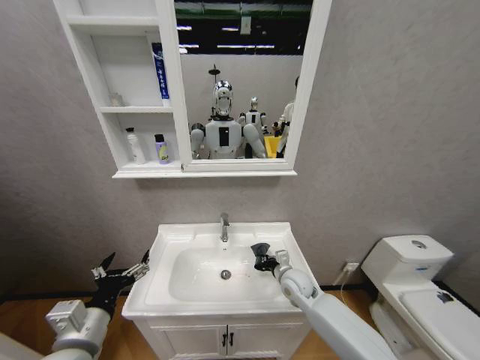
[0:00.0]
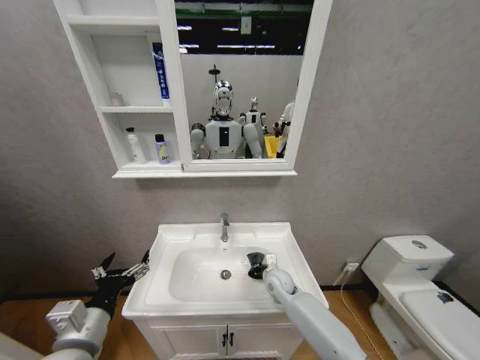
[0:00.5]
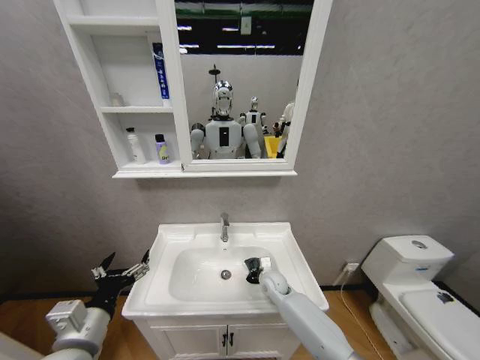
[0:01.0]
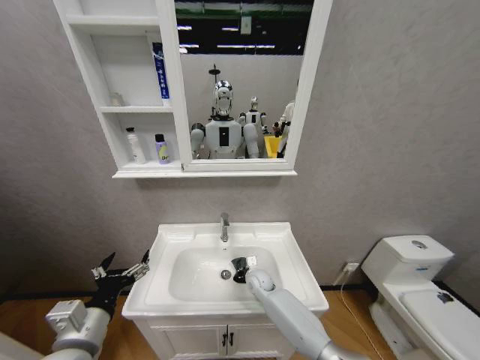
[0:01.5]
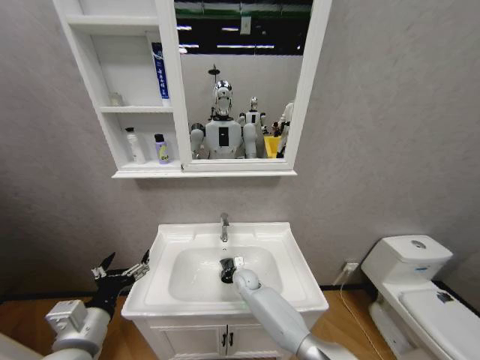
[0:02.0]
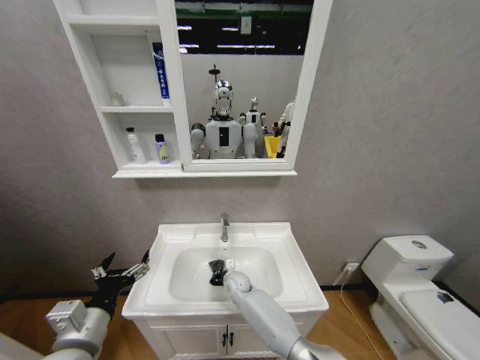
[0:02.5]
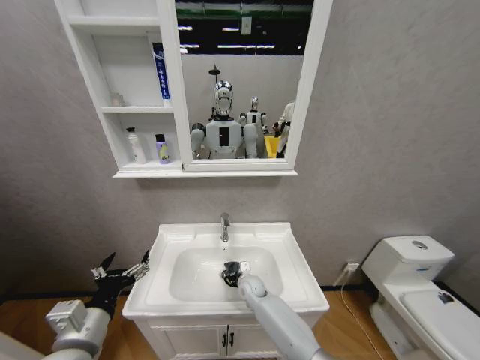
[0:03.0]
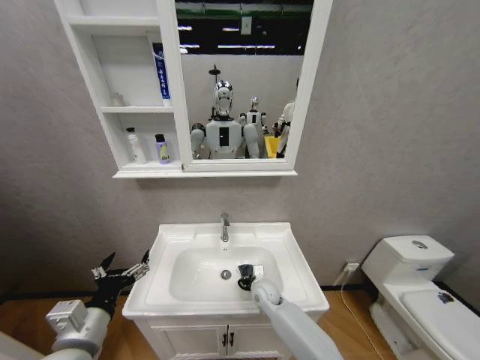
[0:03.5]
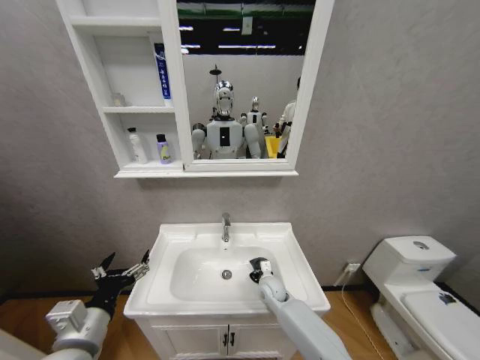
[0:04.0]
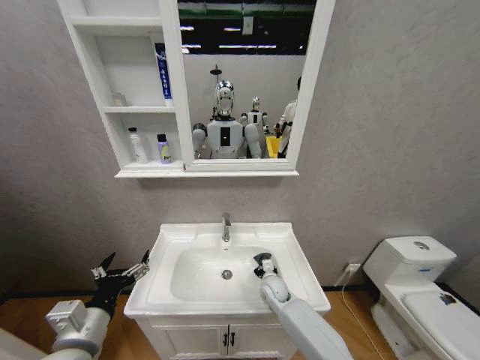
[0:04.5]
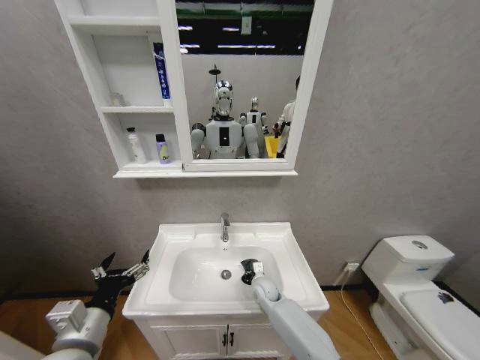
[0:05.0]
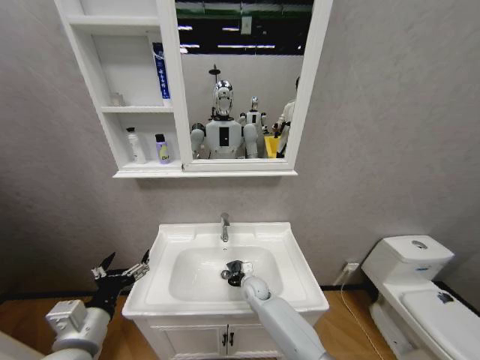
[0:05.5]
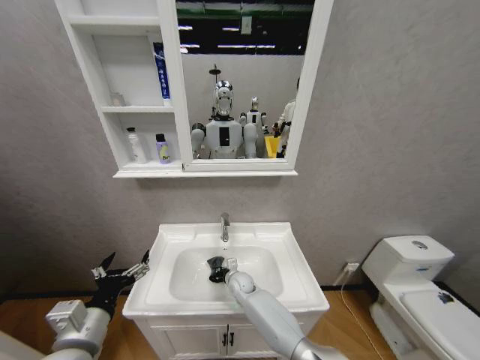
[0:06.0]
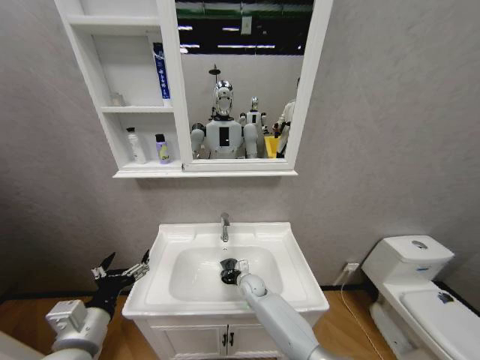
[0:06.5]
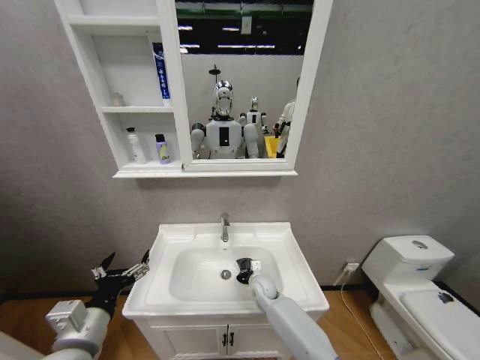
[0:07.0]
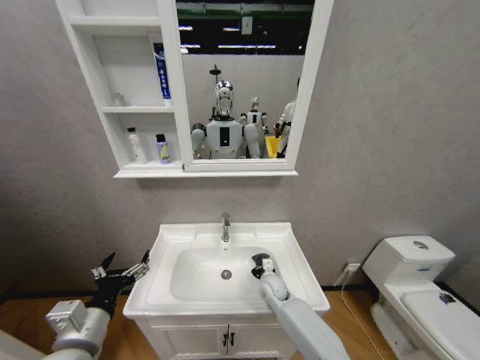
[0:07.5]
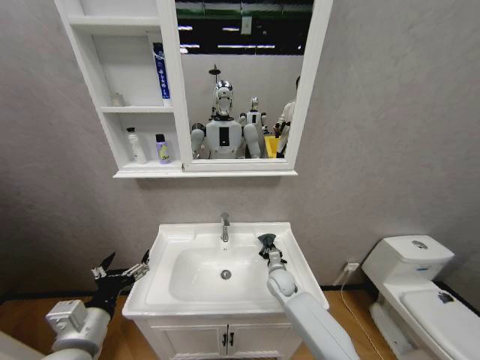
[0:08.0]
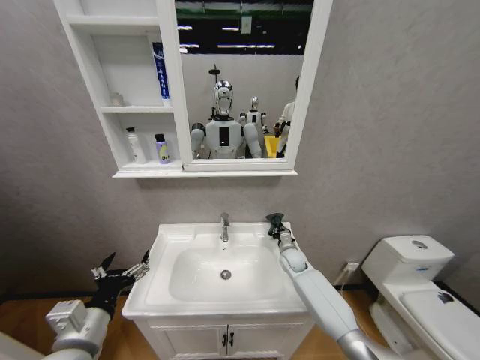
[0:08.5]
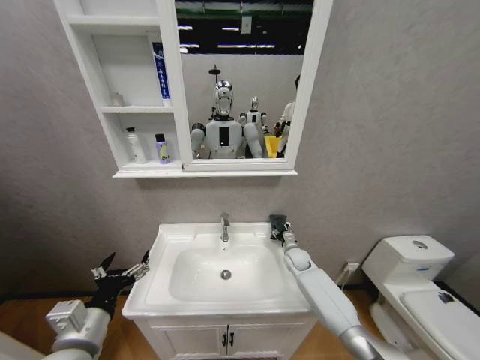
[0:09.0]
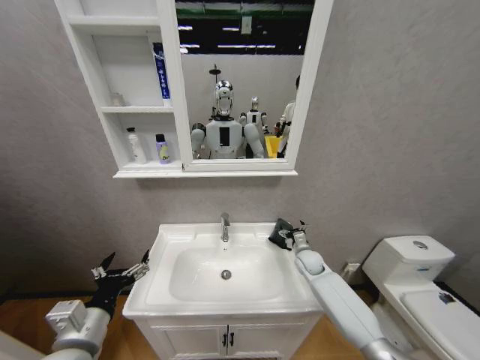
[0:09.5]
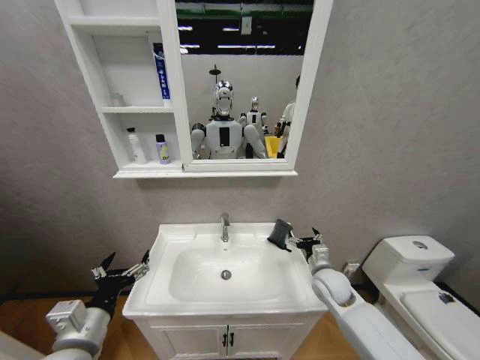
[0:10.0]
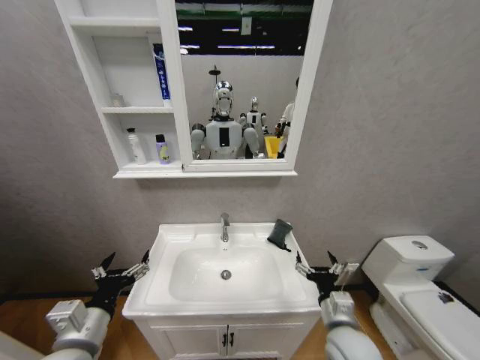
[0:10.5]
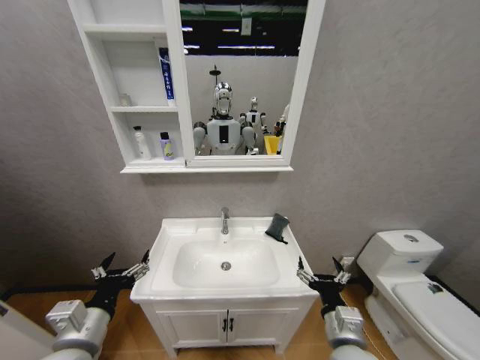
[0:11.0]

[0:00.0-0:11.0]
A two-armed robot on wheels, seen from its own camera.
Task of the whole recording: Move facial cleanser and shampoo from washbasin to cabinet, then wipe washbasin with towel.
0:00.0 to 0:02.0: The right gripper heads to the left, downward and forward, covering some 20 cm.
0:02.0 to 0:03.5: The right gripper goes some 10 cm to the right and backward.
0:03.5 to 0:05.5: The grippers move only a little.
0:05.5 to 0:07.5: The right gripper is displaced to the right by about 5 cm.
0:07.5 to 0:09.0: The right gripper travels to the right and forward by roughly 15 cm, and opens.
0:09.0 to 0:11.0: The right gripper heads backward, covering some 35 cm, and opens up.

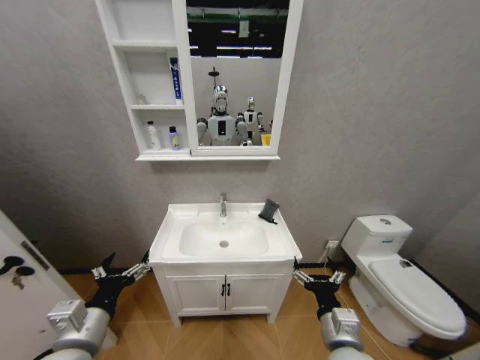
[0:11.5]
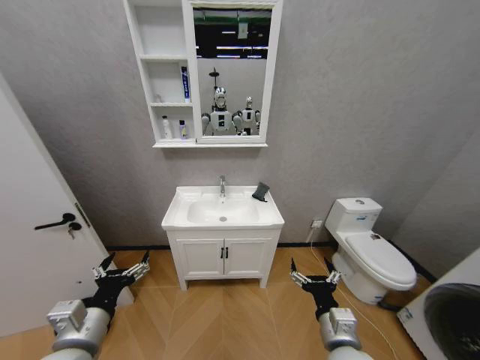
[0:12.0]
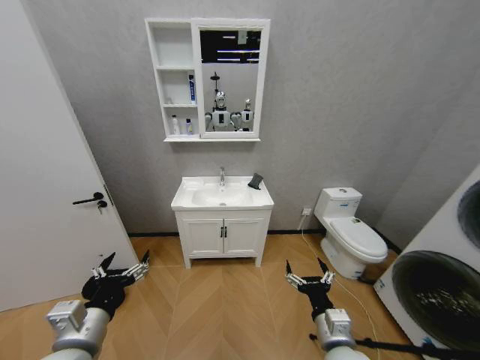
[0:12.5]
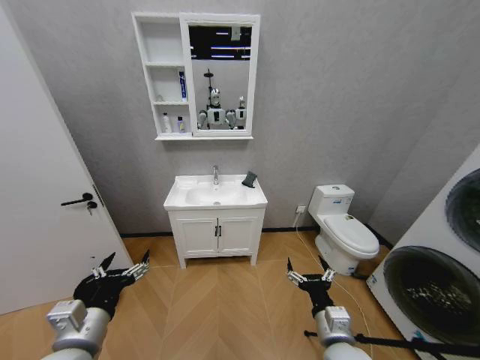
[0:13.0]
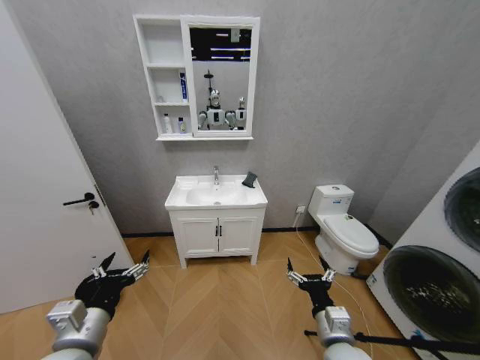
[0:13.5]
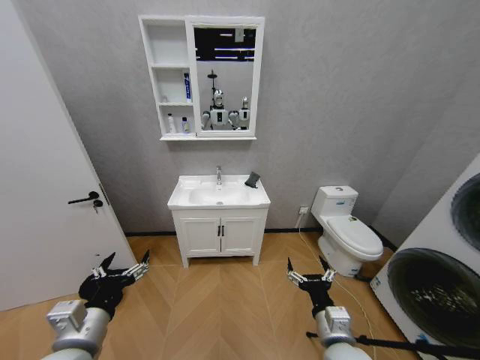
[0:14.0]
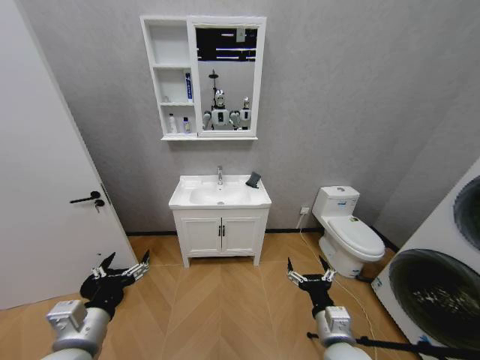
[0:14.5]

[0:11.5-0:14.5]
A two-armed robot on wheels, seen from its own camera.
Task of the whole recording: Move facial cleanser and shampoo from washbasin to cabinet, then wipe washbasin with towel.
0:13.0 to 0:14.5: Neither gripper changes place.

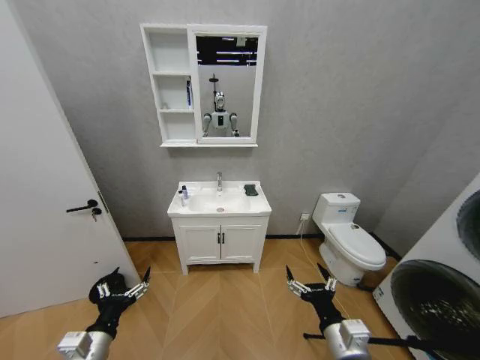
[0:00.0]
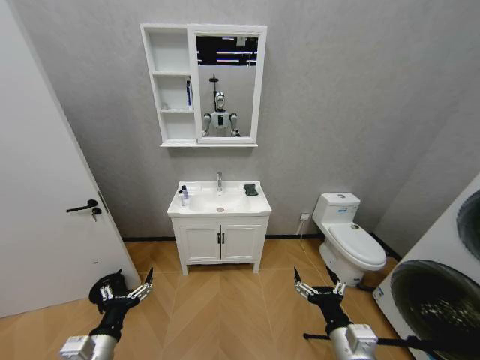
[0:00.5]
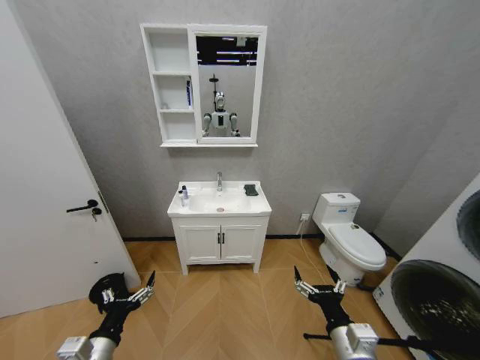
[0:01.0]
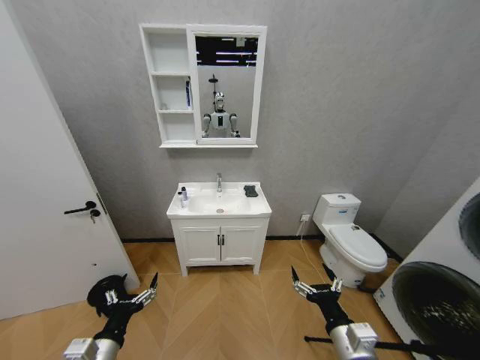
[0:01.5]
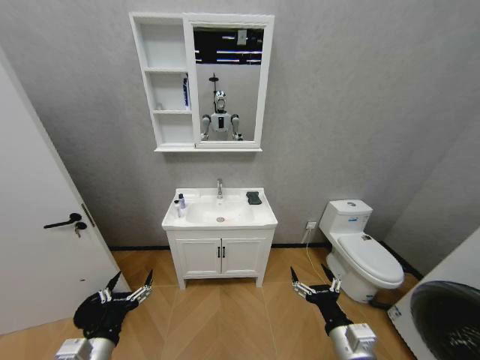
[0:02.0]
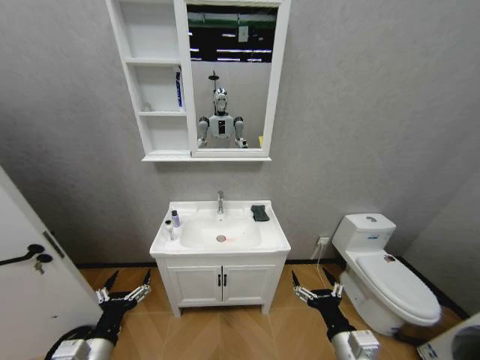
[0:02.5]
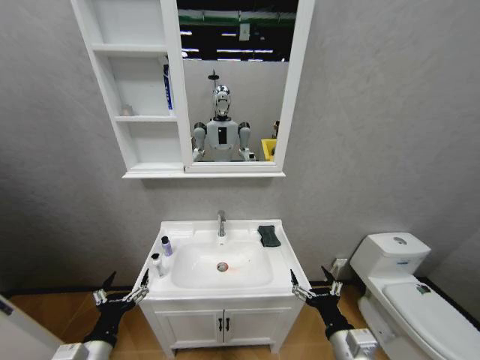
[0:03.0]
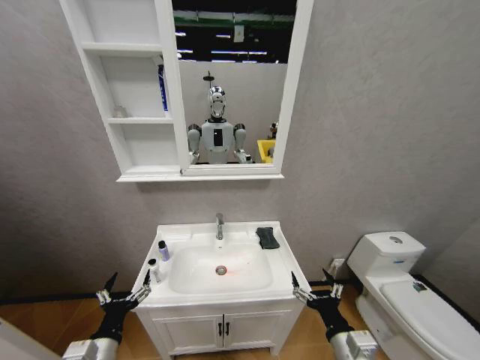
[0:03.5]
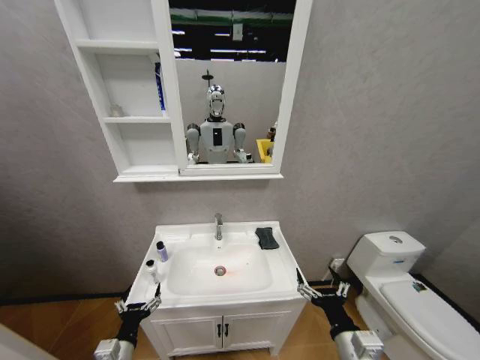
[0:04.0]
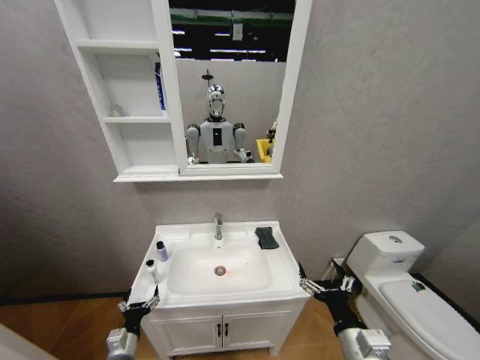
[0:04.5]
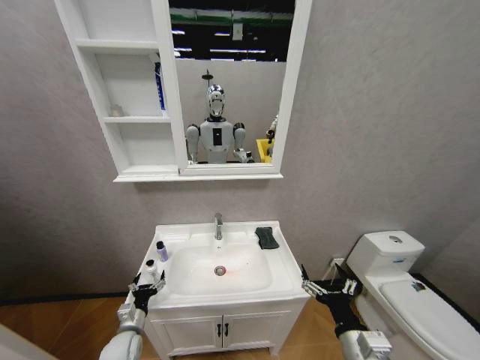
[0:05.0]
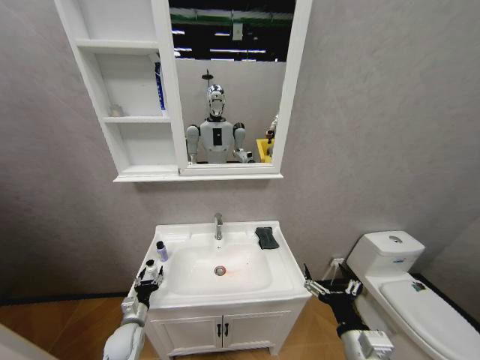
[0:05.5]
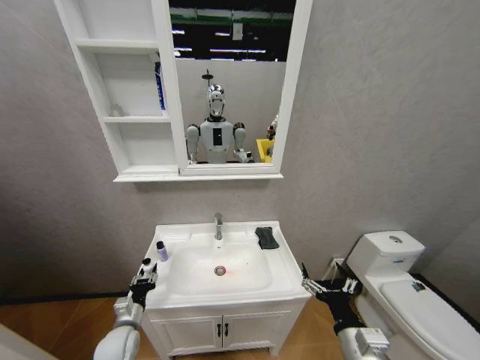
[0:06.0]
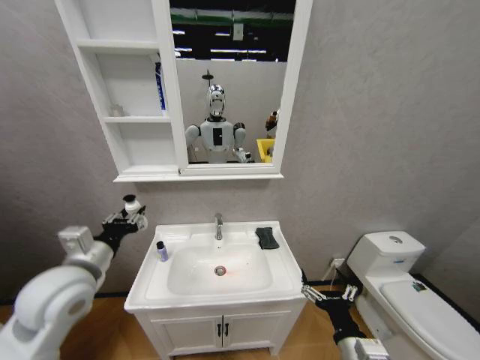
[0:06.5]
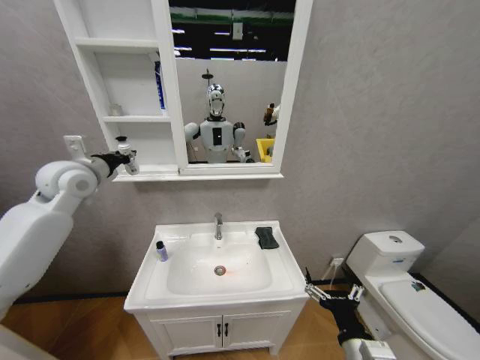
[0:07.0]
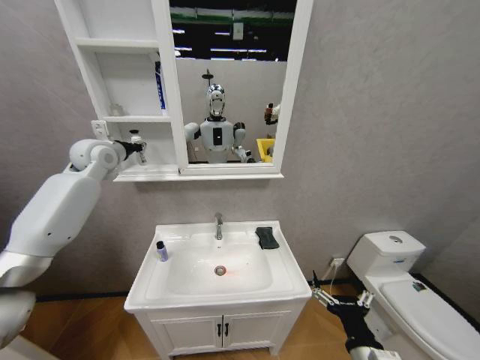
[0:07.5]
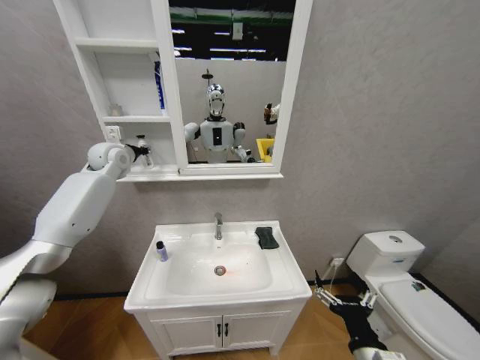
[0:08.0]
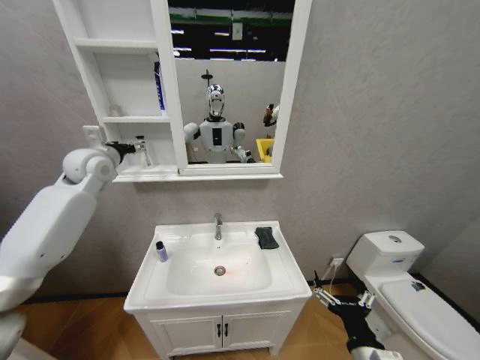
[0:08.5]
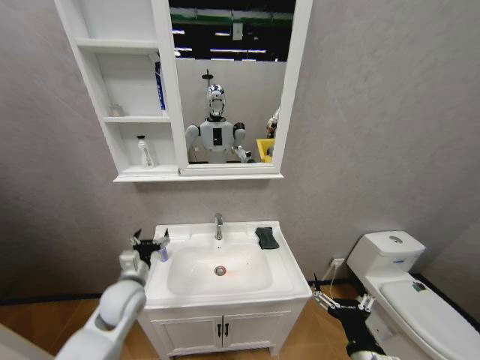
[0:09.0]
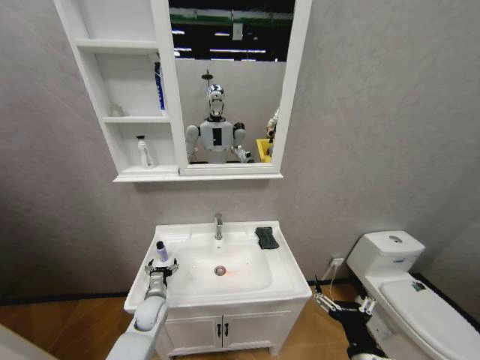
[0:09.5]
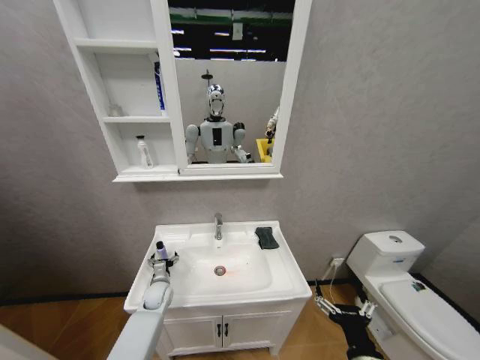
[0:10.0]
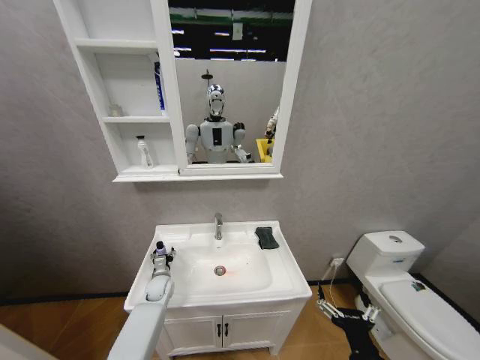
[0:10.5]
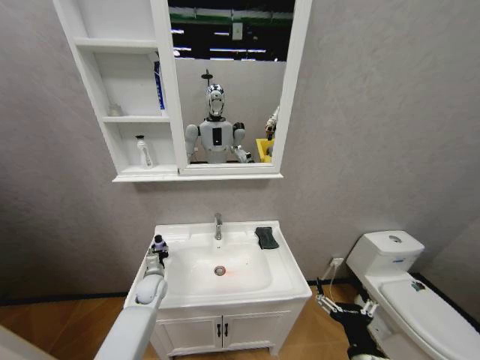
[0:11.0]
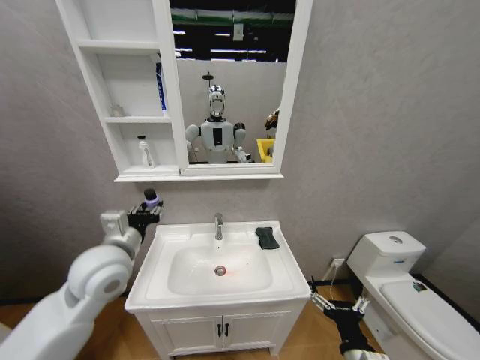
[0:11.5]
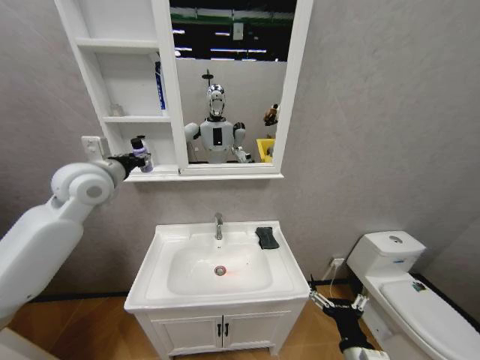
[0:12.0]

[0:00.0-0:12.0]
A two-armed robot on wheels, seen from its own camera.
Task of the whole recording: Move facial cleanser and shampoo from washbasin to cabinet, then wipe washbasin with towel.
0:02.0 to 0:04.0: The left gripper shifts approximately 10 cm downward.
0:04.0 to 0:06.0: The left gripper moves forward, approximately 10 cm, and closes its fingers.
0:06.0 to 0:08.0: The left gripper shifts approximately 50 cm upward and forward.
0:08.0 to 0:10.0: The left gripper travels downward by roughly 50 cm, and opens.
0:10.0 to 0:12.0: The left gripper goes about 50 cm upward, and closes up.
